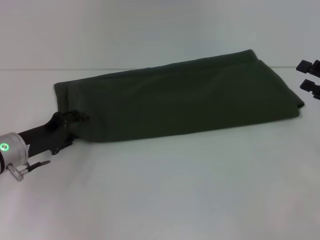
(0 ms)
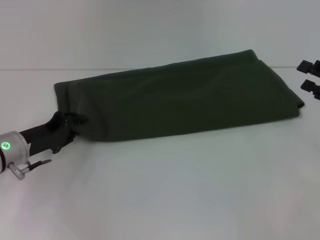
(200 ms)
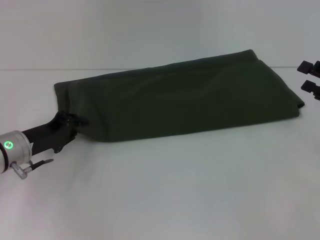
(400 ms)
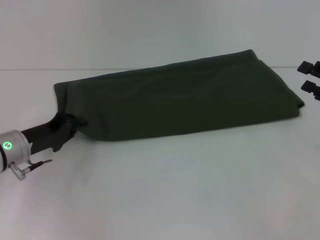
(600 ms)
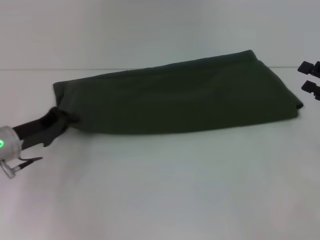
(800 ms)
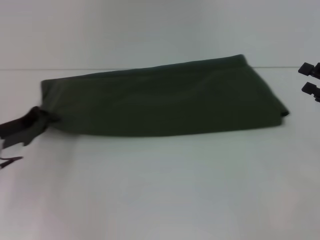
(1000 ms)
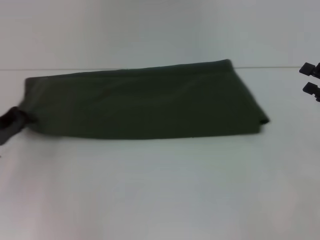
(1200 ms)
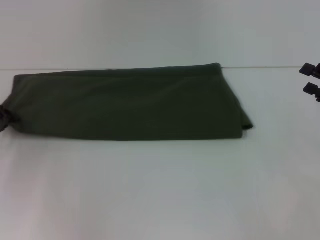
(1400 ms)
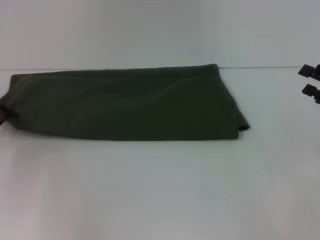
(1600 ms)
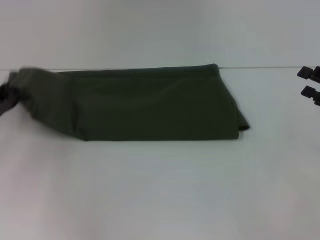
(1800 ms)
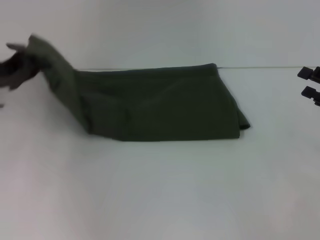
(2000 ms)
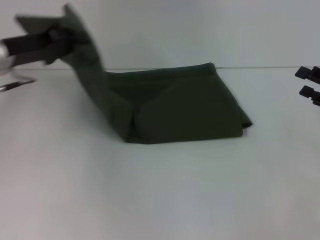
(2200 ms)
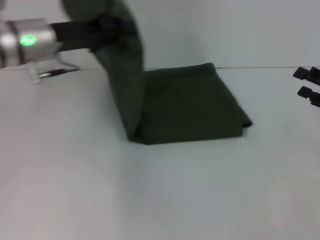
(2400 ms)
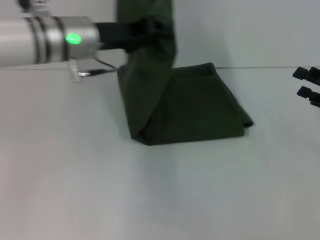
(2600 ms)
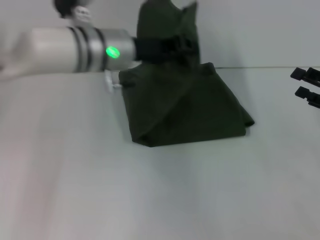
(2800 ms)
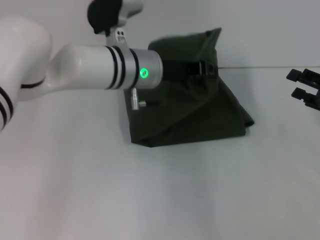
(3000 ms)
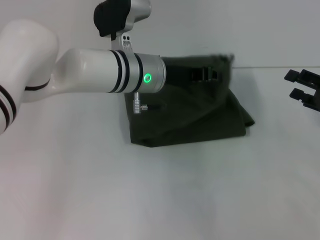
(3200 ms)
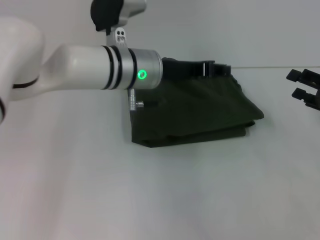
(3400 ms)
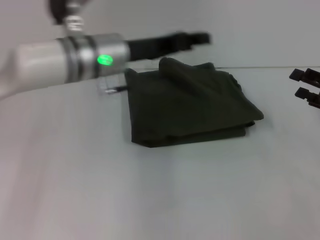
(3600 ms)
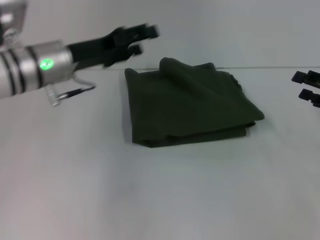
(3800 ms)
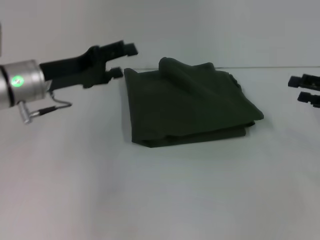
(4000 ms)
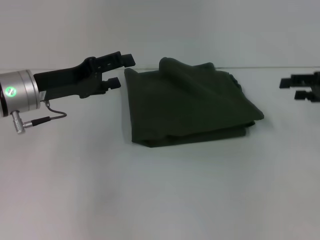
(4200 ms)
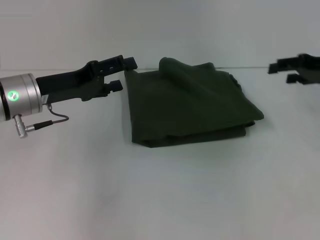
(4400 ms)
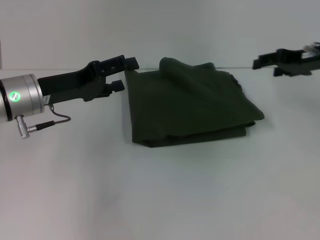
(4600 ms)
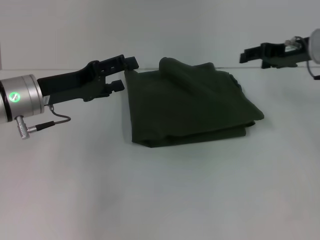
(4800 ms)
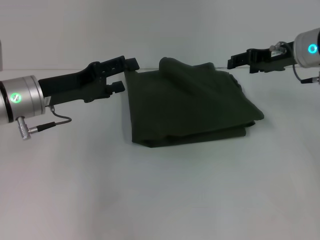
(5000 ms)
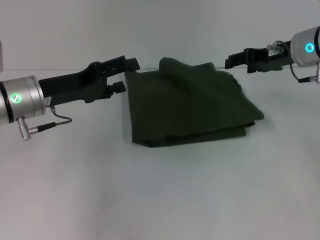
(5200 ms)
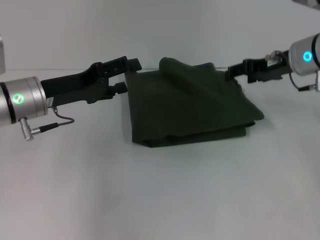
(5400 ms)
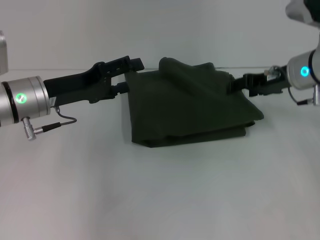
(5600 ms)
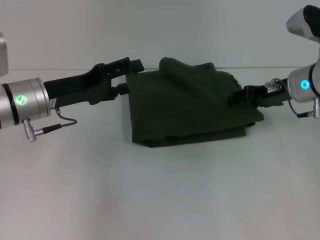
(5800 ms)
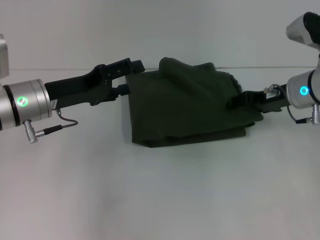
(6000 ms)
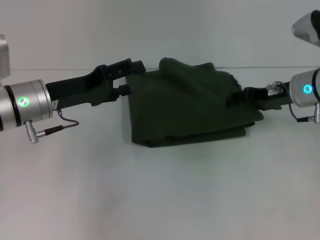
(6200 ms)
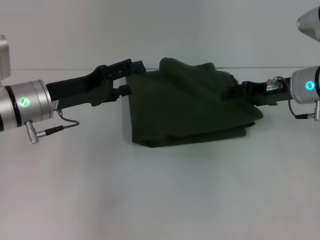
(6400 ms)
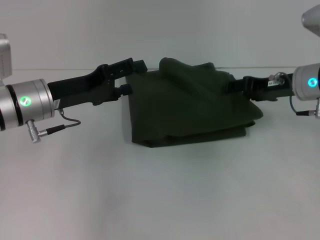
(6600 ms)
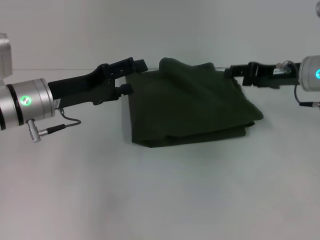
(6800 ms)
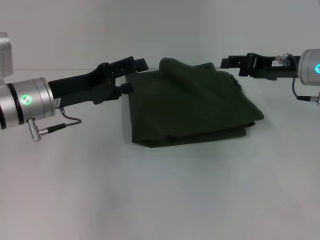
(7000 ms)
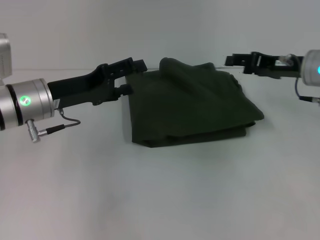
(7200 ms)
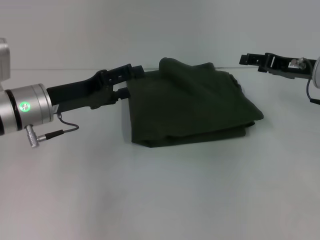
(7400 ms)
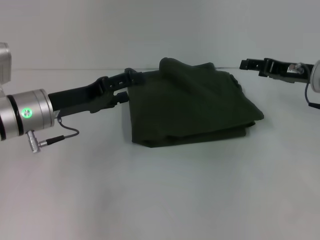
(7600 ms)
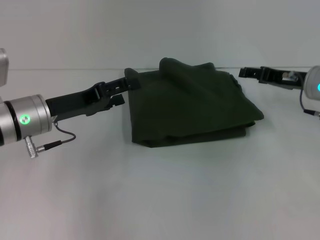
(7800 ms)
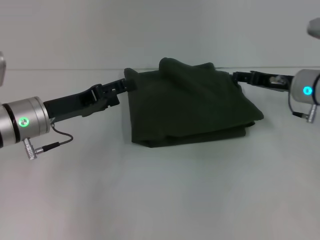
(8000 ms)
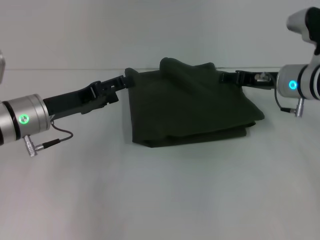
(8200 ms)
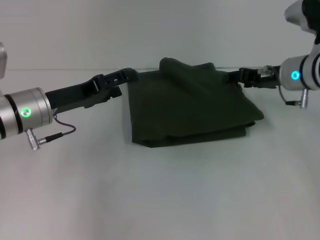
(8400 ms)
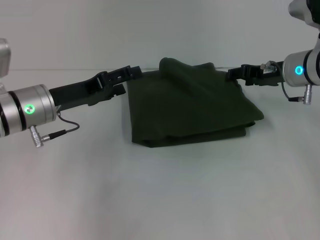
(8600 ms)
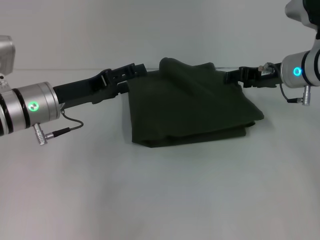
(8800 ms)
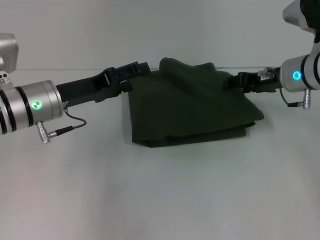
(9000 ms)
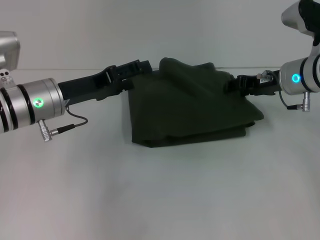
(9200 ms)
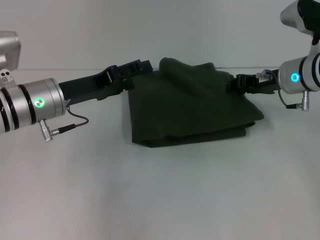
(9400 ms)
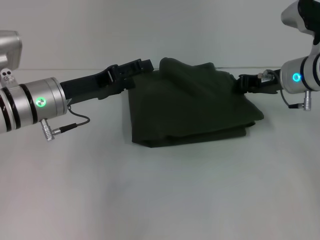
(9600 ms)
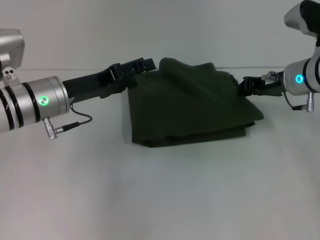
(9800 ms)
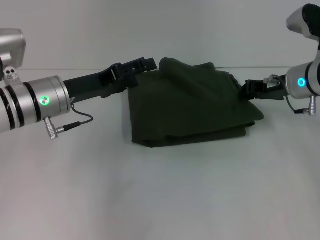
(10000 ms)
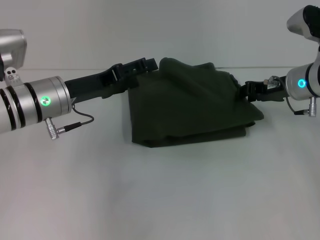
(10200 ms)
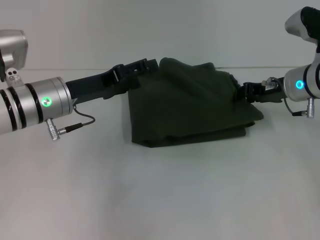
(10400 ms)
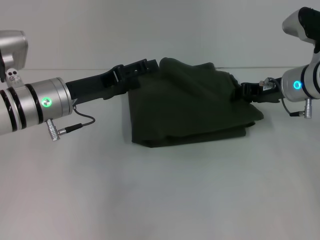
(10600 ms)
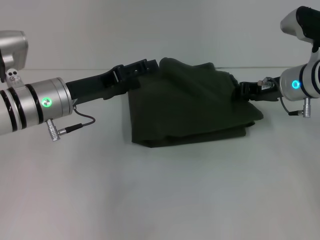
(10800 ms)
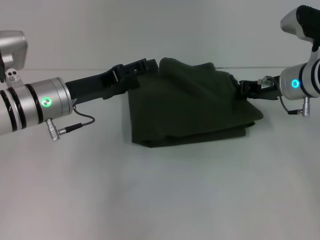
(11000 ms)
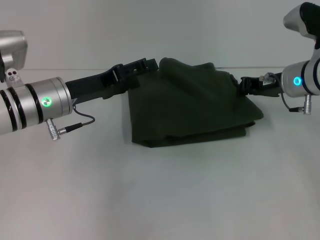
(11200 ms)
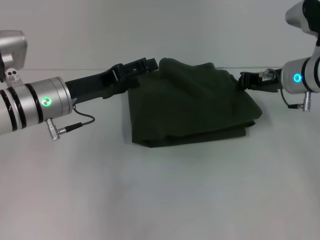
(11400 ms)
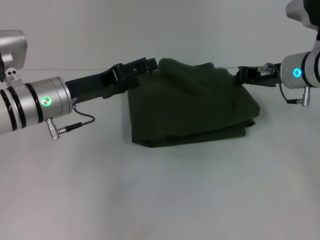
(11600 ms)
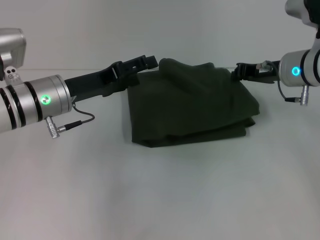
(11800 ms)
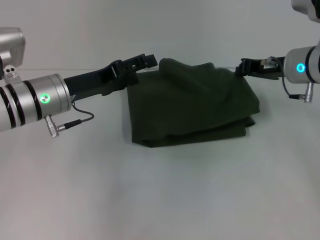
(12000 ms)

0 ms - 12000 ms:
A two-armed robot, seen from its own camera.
0 ms - 1600 ms: The left gripper moves to the left, roughly 10 cm, and closes its fingers.
1600 ms - 3000 ms: The left gripper travels to the right by about 30 cm.
3000 ms - 4400 ms: The left gripper shifts about 15 cm to the left, and opens up. The right gripper goes some 10 cm forward and upward.
4400 ms - 6000 ms: The right gripper is displaced to the left and downward by some 10 cm.
7600 ms - 9000 ms: The right gripper shifts by some 5 cm.
9000 ms - 10400 ms: The grippers make only small movements.
10400 ms - 12000 ms: The right gripper closes.

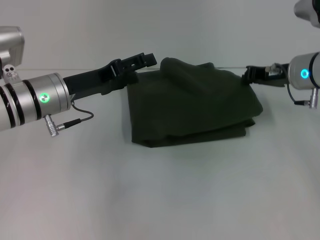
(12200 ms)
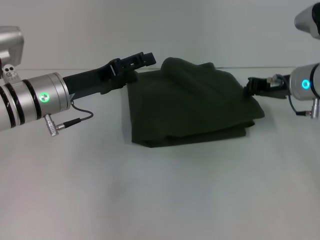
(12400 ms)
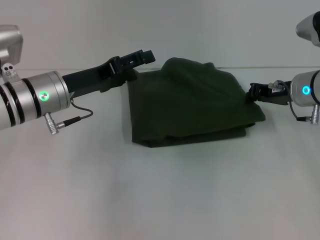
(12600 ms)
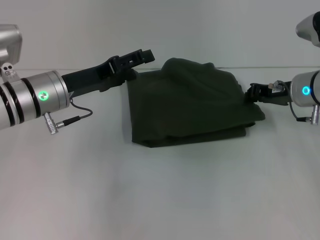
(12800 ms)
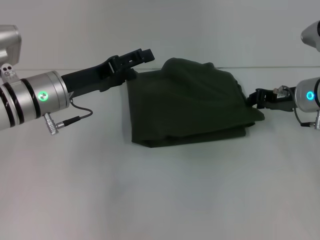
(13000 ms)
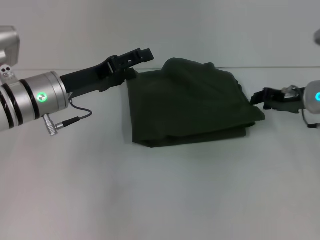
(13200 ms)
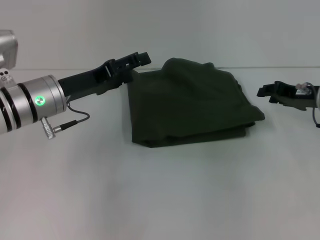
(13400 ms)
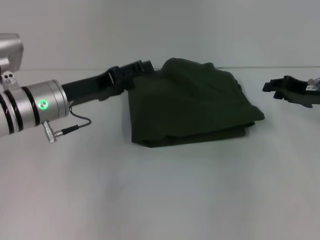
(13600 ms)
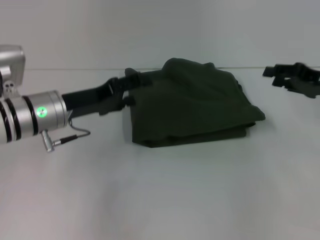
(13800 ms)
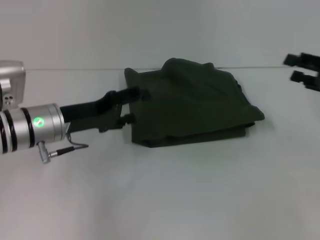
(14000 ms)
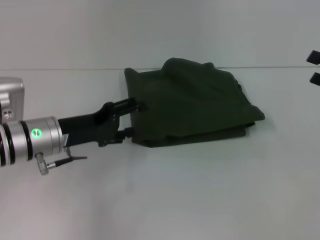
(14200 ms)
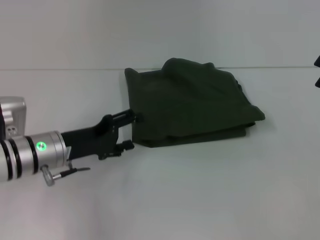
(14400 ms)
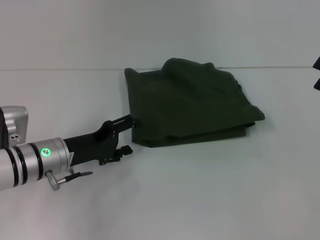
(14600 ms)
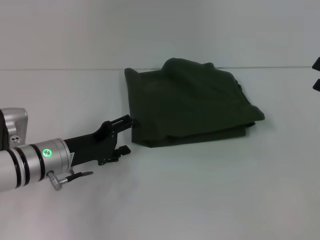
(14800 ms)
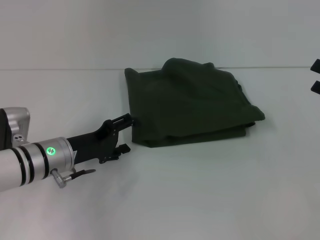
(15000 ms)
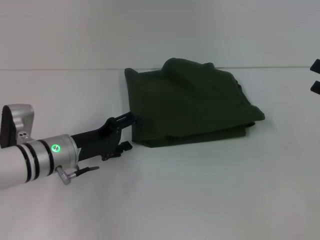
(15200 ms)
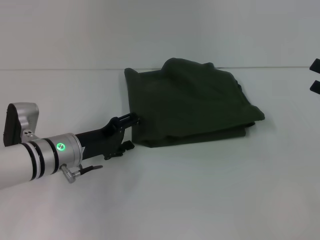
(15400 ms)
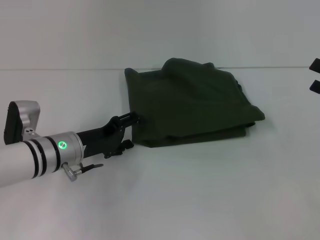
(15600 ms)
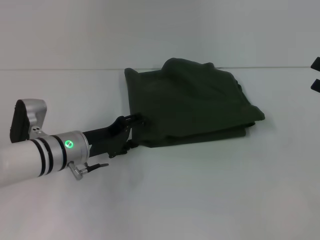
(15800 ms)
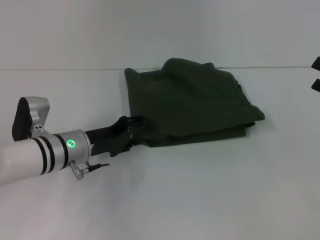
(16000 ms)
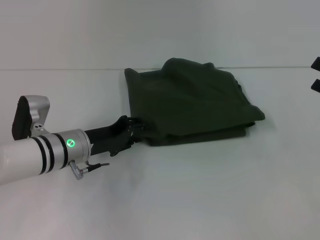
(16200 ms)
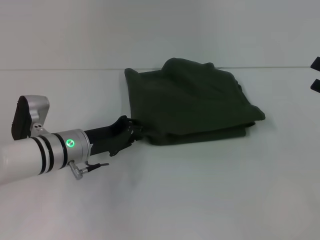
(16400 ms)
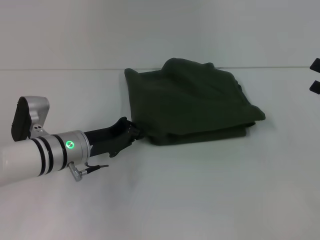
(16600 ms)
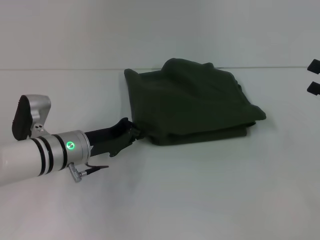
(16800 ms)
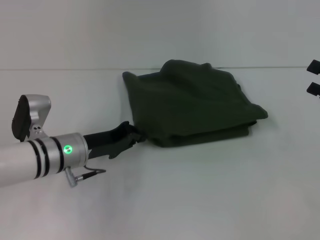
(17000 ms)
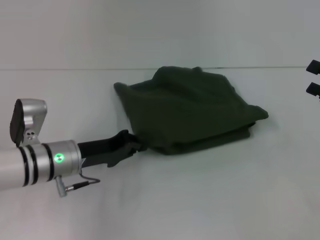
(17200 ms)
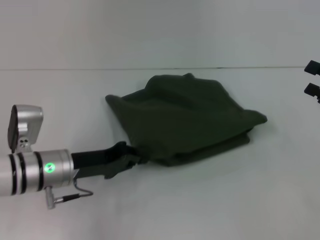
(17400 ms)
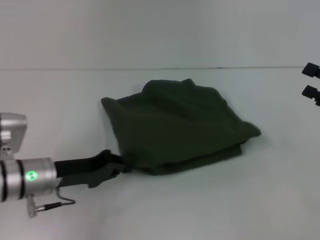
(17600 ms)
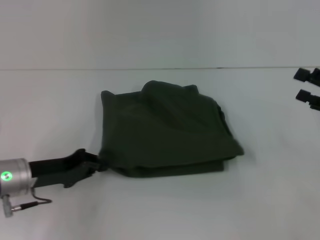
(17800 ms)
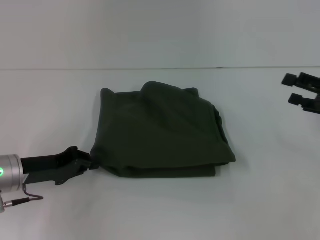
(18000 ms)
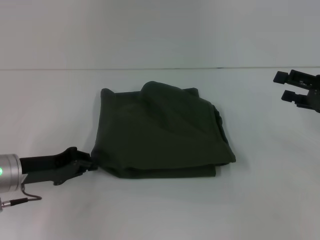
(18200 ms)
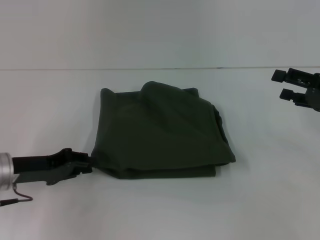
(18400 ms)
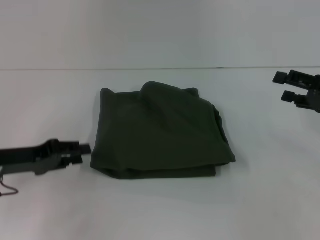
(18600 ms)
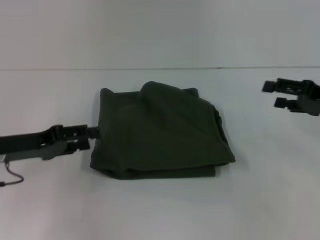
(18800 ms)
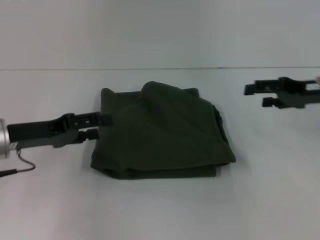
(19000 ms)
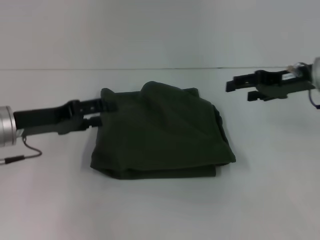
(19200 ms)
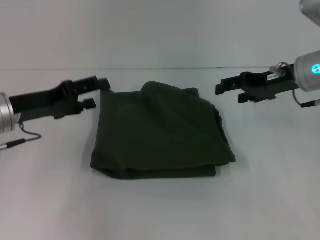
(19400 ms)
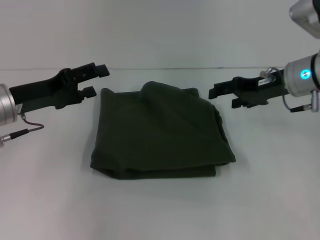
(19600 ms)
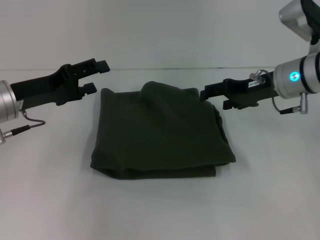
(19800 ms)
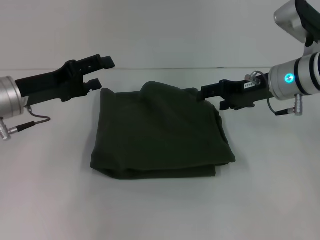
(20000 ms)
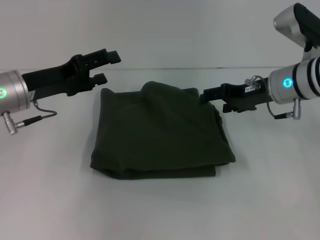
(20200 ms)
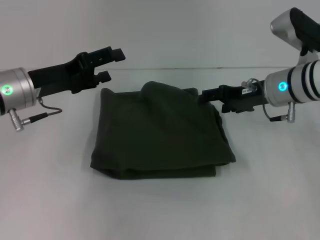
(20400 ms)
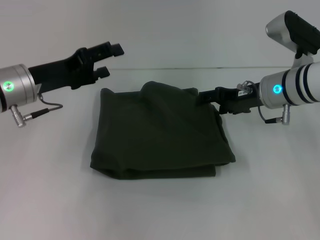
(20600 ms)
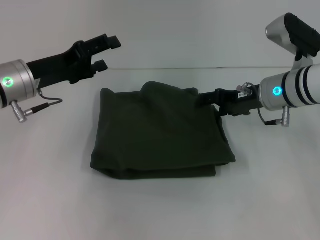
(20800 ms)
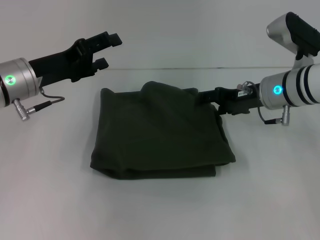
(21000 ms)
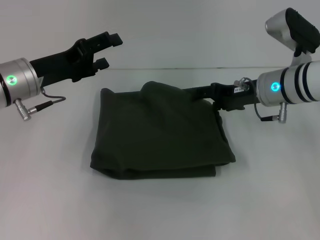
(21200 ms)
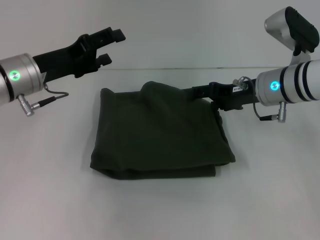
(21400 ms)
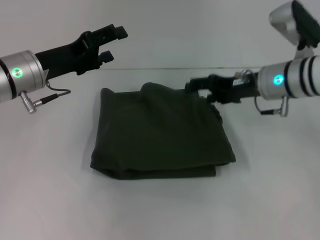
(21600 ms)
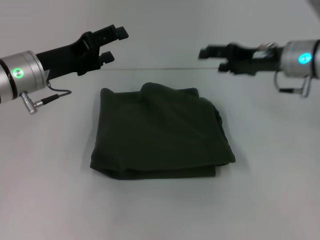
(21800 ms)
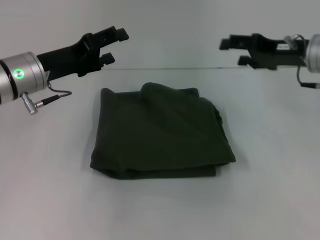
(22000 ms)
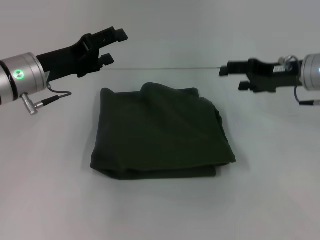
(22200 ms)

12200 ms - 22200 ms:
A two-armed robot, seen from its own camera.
12200 ms - 13600 ms: The right gripper goes some 5 cm to the right, and opens its fingers.
13600 ms - 15000 ms: The left gripper goes some 10 cm downward. The right gripper is displaced backward and to the right by some 10 cm, and opens its fingers.
15000 ms - 16400 ms: The left gripper closes its fingers.
16400 ms - 18000 ms: The left gripper travels to the left by roughly 10 cm, and closes.
18000 ms - 19400 ms: The left gripper heads upward, covering some 5 cm, and opens up; the right gripper is displaced to the left and forward by approximately 15 cm.
19400 ms - 20800 ms: The right gripper moves approximately 5 cm.
20800 ms - 22200 ms: The right gripper moves to the right, roughly 5 cm.
